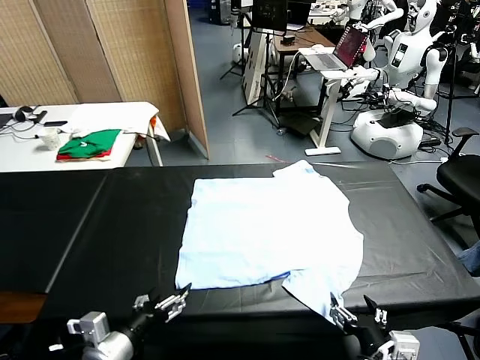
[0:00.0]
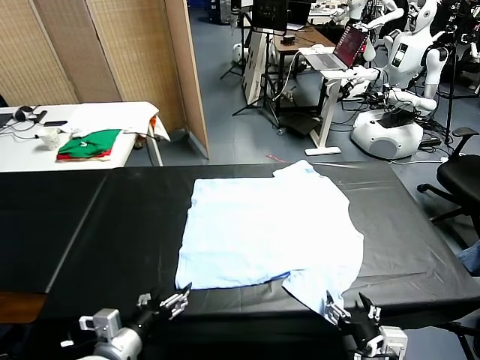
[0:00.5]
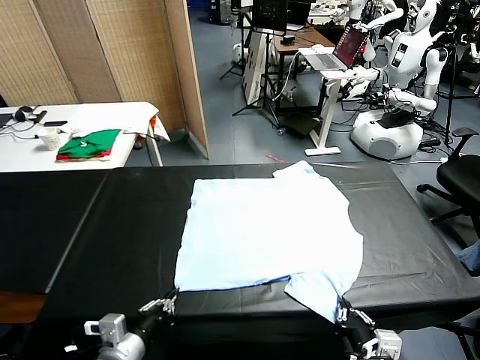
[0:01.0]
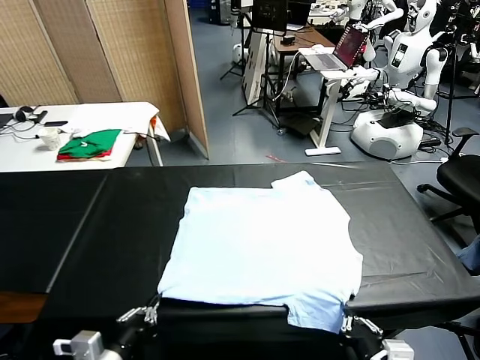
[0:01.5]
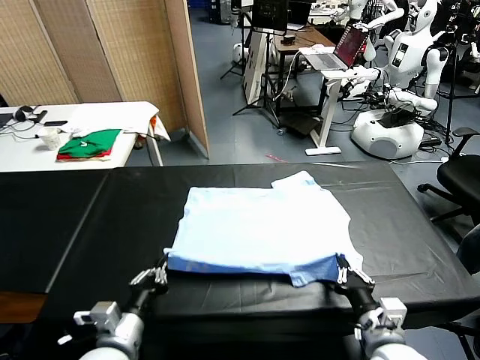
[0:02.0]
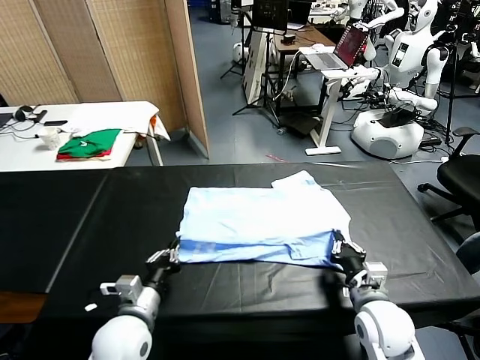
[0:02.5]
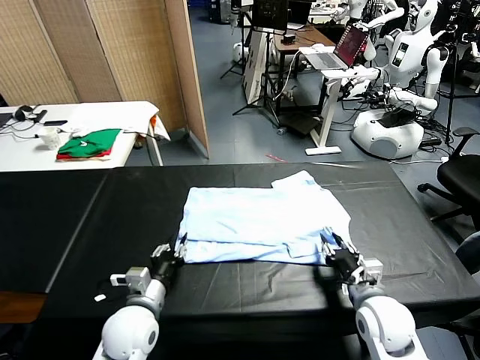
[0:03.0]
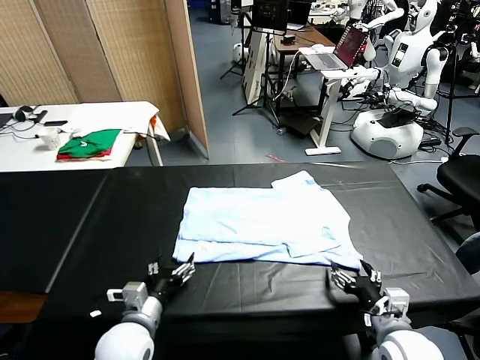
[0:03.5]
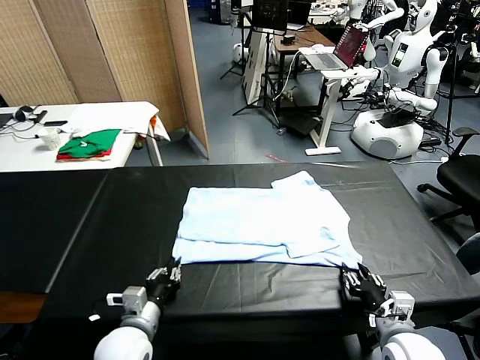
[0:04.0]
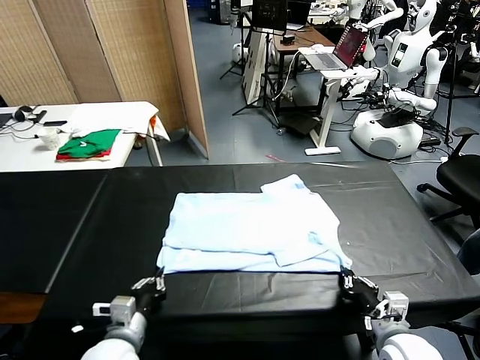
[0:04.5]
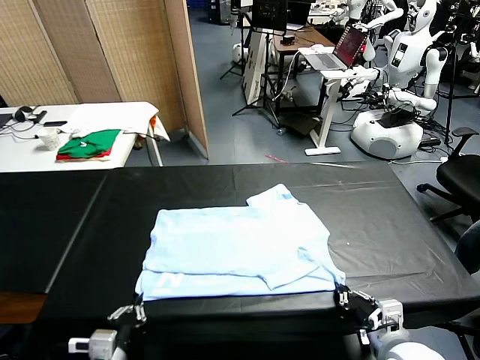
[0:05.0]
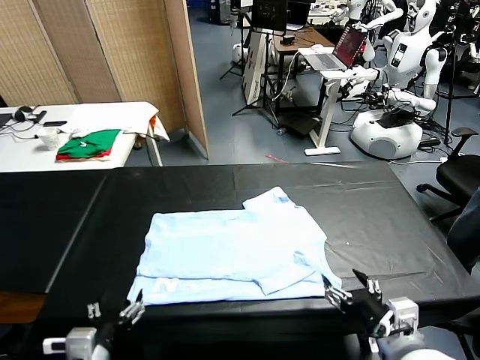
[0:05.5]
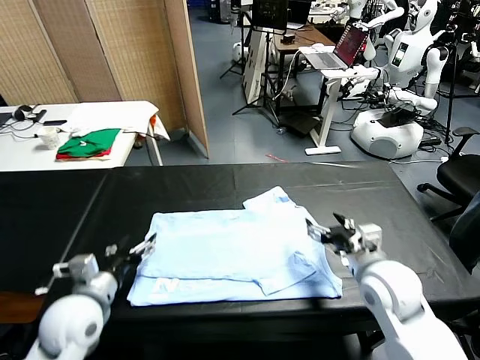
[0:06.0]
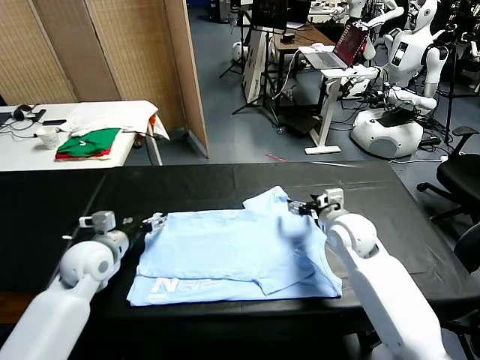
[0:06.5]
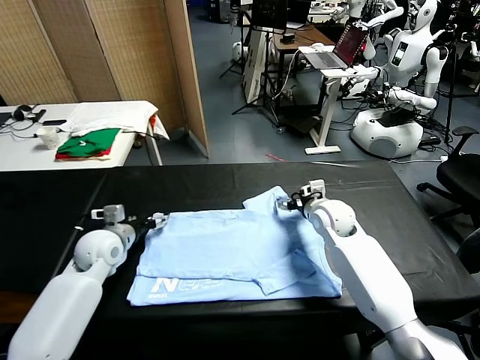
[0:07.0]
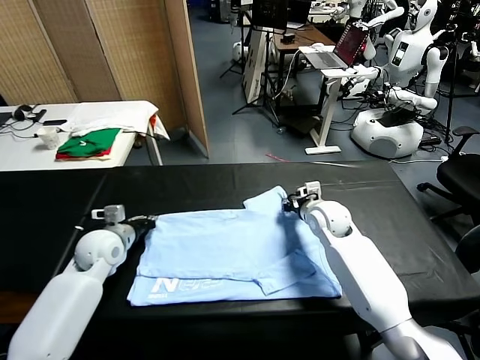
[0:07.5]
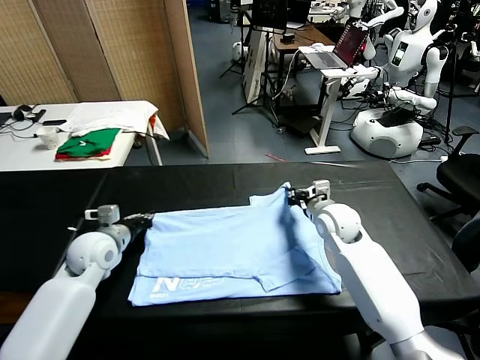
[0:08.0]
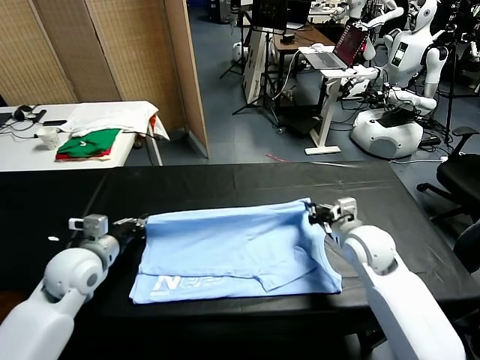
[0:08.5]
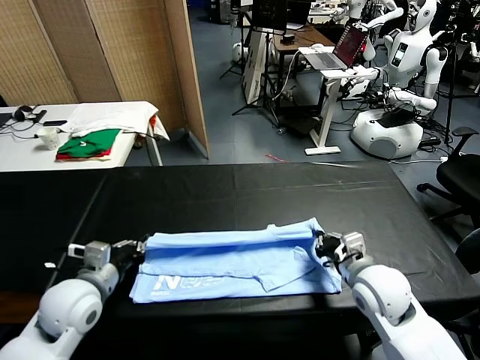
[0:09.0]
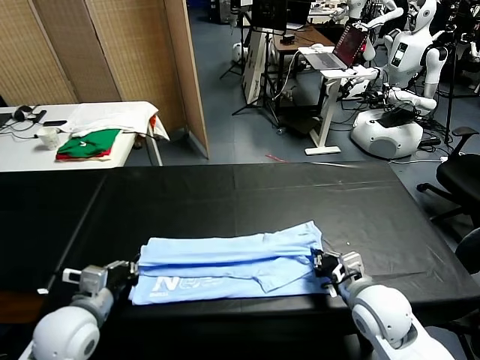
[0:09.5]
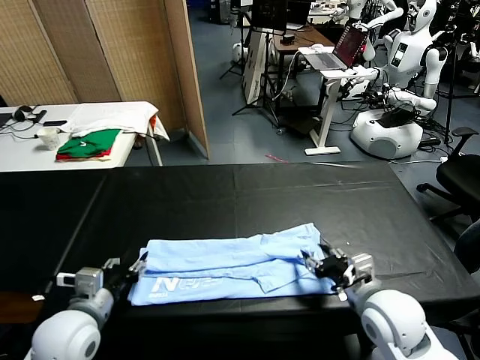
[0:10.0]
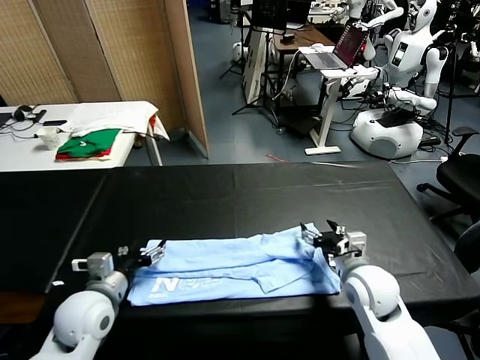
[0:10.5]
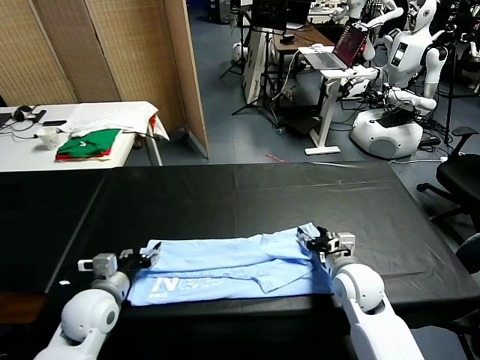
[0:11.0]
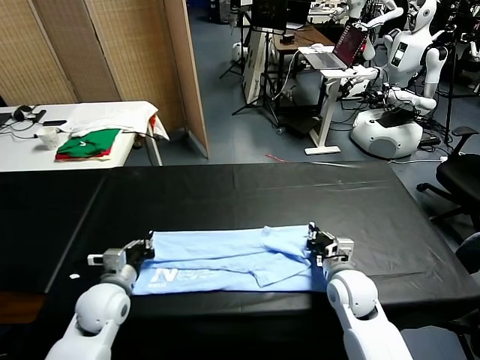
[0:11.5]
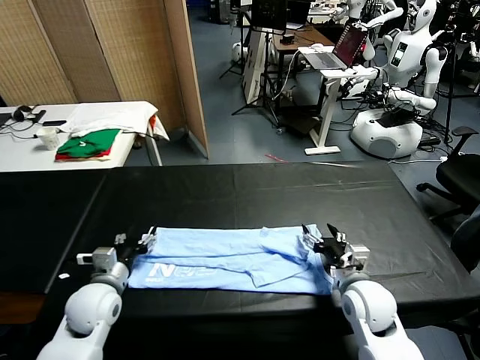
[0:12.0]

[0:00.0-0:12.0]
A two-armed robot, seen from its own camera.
Task of the whole recording: fold and organize the clothes.
Step, 0.0 to 1.0 s: use both grippers simultaneously to clamp the lower edge of the clothing fabric.
Step, 1.5 to 3.0 s: use both grippers to drag the lower edge of the fabric forward and fold it over the upper edge.
Step, 3.5 to 5.5 s: Drag the clothes downward with both gripper.
Step, 6.0 to 8.0 s: use both grippers simultaneously to clamp the upper edge of the clothing fabric.
Step, 8.5 to 10.0 s: use both grippers to drag the upper edge of the fabric backward and fold it over the lower edge.
2.0 to 4.0 s: The left gripper opens and closes again, while the right gripper changes place by about 5 cm, and opens, then closes again.
4.0 to 6.0 s: The left gripper heads forward, to the left and upward, covering about 15 cm, and opens up, while the right gripper goes some 20 cm forward and upward, and opens up.
6.0 to 8.0 s: The right gripper moves forward, about 5 cm, and closes. The left gripper closes its fingers.
8.0 to 10.0 s: The two grippers go approximately 15 cm backward. The right gripper opens up. The left gripper opens up.
10.0 to 12.0 s: The right gripper closes, then reopens. The left gripper heads downward, covering roughly 5 cm, and closes, then reopens.

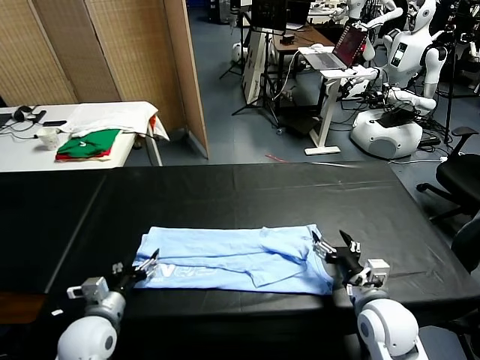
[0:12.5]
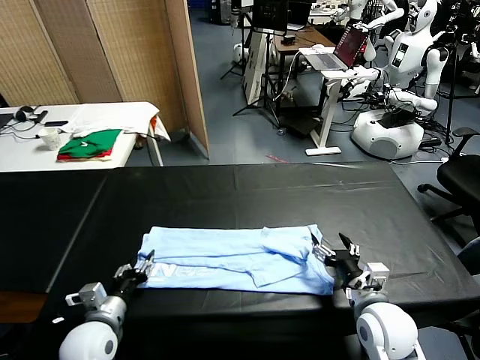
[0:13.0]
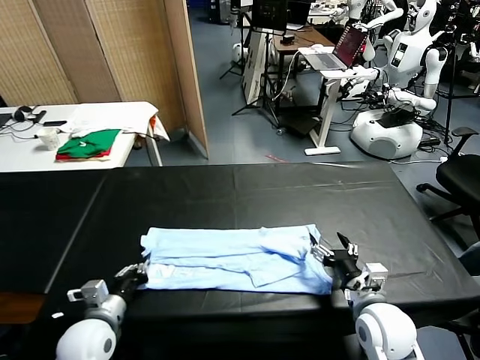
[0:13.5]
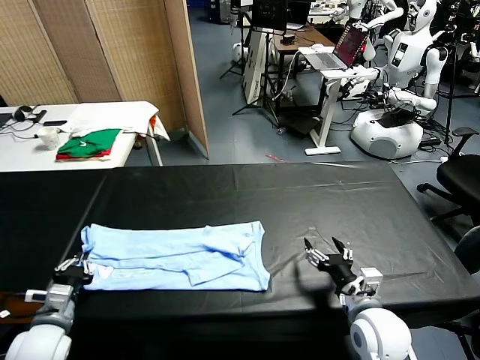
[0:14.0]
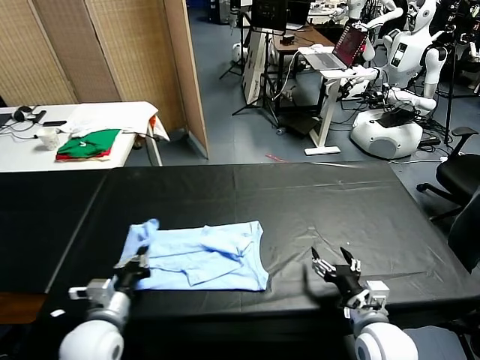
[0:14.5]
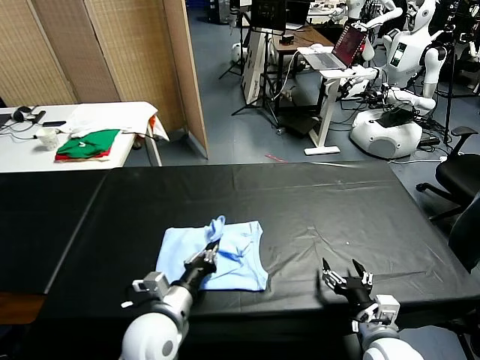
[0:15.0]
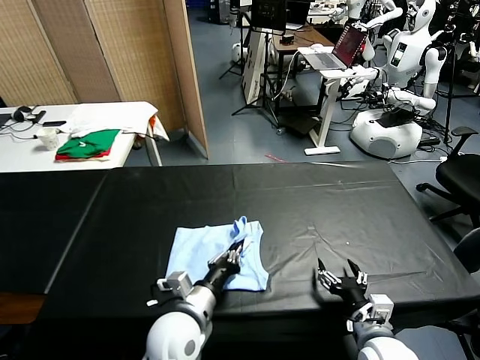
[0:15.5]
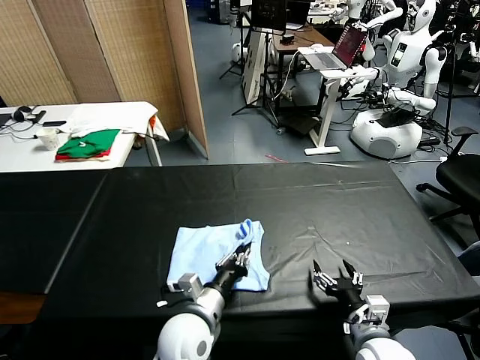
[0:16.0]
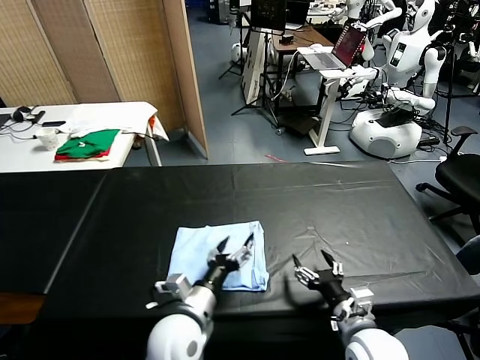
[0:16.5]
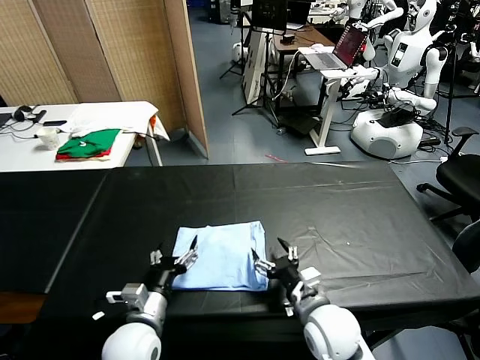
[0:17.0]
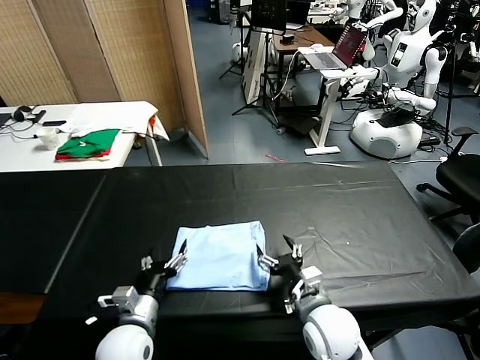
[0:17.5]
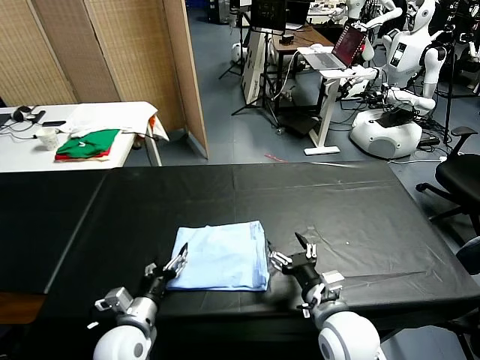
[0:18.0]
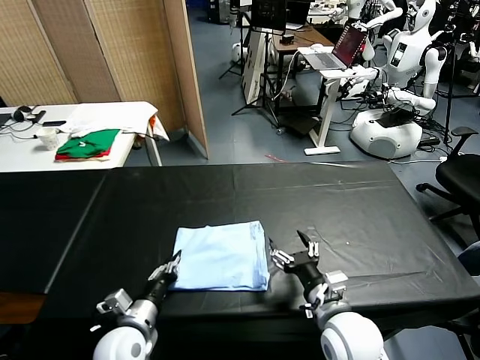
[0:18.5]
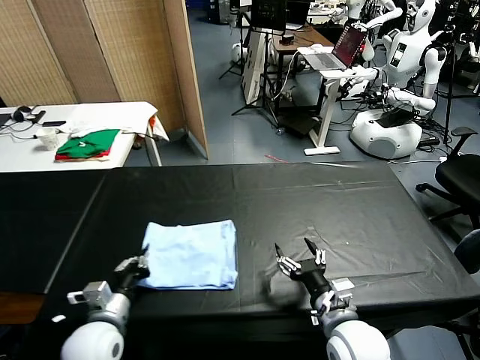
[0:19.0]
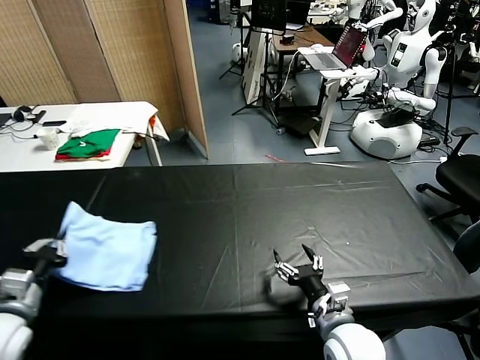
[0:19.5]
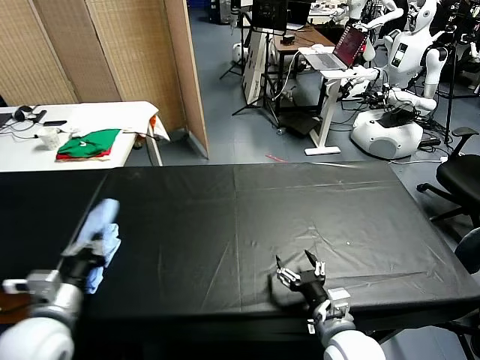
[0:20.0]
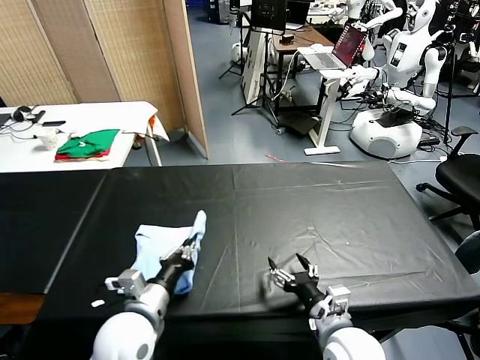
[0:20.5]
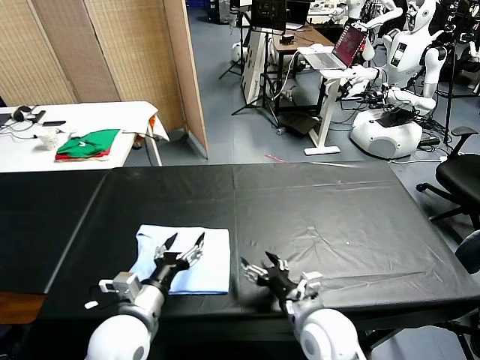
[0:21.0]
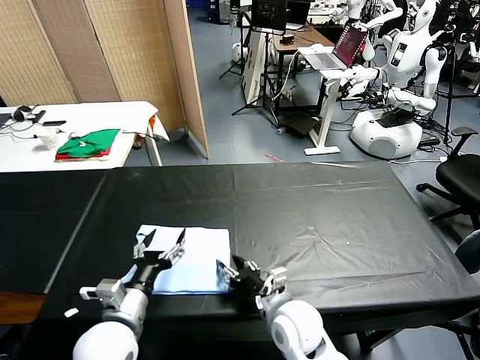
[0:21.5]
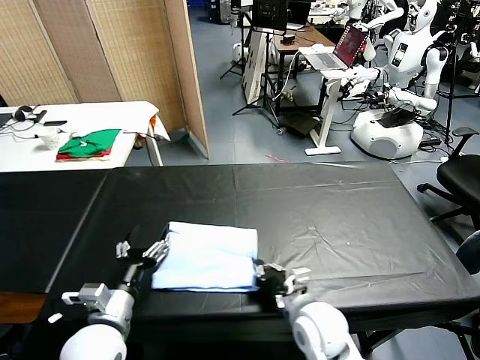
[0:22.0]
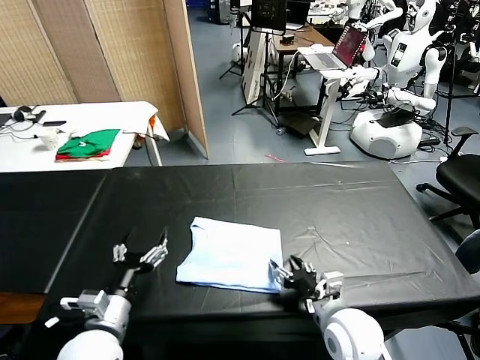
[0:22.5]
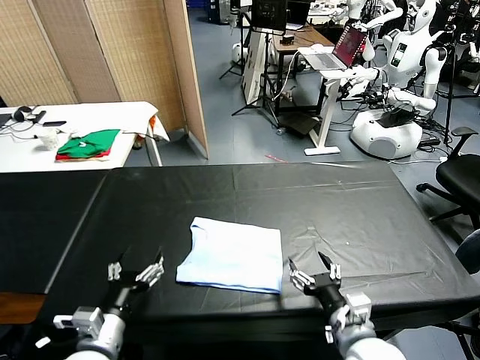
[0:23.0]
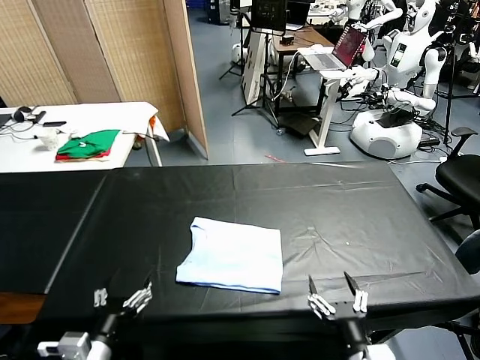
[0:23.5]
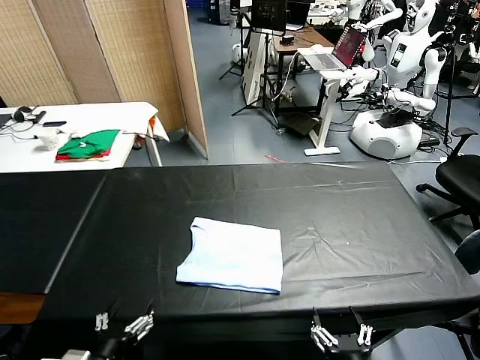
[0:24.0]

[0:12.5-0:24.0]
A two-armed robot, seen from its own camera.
Task of the whole recording: fold and organize the clothes.
Step, 14.0 to 16.0 s: use the left gripper to drag the left edge of the fabric to the left and folds it over the right edge.
Step, 16.5 to 20.5 s: Flip the folded clothes over with left gripper.
Step, 21.0 to 22.5 s: Drag the clothes to the center of the table.
12.5 to 14.5 s: The left gripper moves to the right, approximately 5 cm, and closes up.
14.5 to 16.5 s: The left gripper is displaced to the right by about 10 cm, and opens.
16.5 to 18.5 s: The left gripper travels to the left and downward by roughly 10 cm, and closes its fingers.
18.5 to 20.0 s: The left gripper goes some 15 cm upward and to the left.
20.0 to 22.0 s: The left gripper moves to the right and downward, roughly 10 cm, and opens its fingers. The right gripper shifts approximately 10 cm forward and to the left, and closes.
22.0 to 24.0 s: The left gripper travels backward by approximately 10 cm. The right gripper travels backward by roughly 20 cm, and opens.

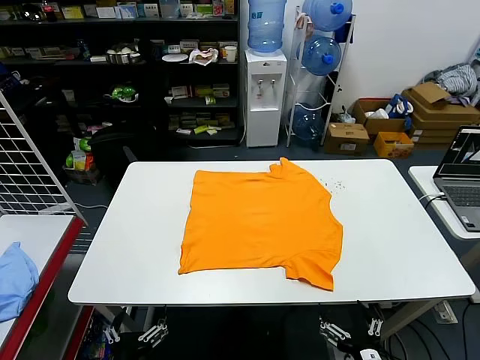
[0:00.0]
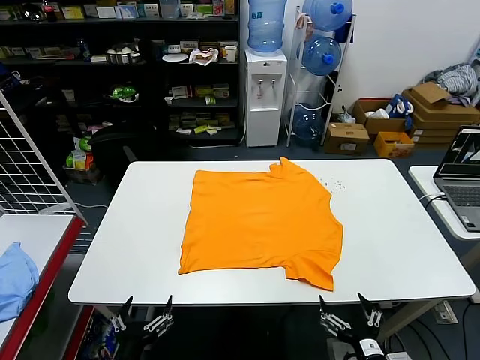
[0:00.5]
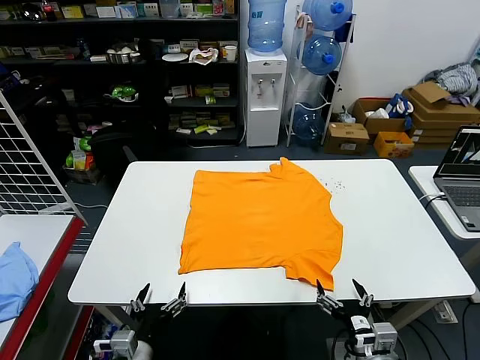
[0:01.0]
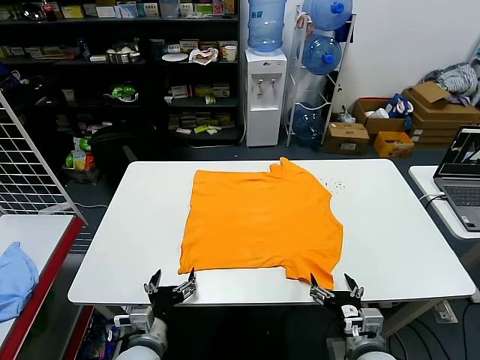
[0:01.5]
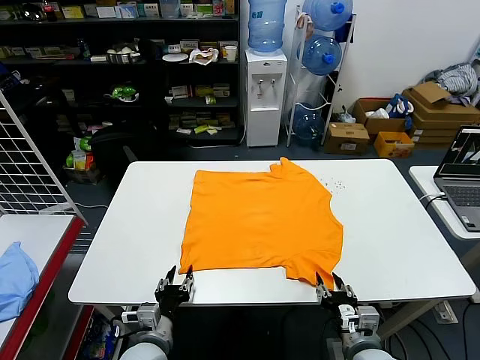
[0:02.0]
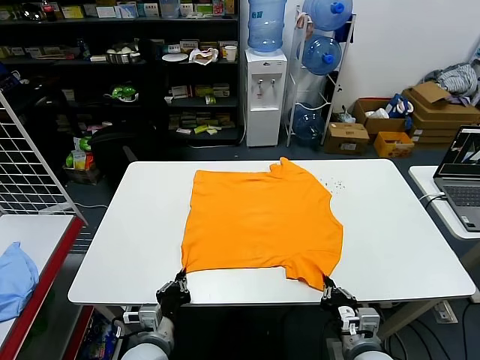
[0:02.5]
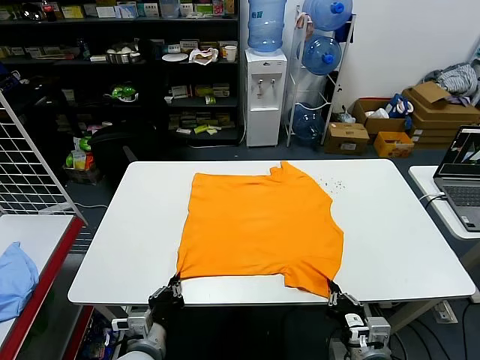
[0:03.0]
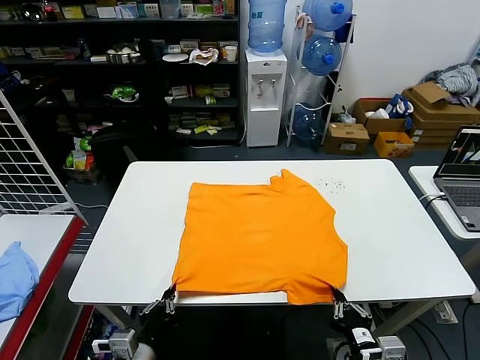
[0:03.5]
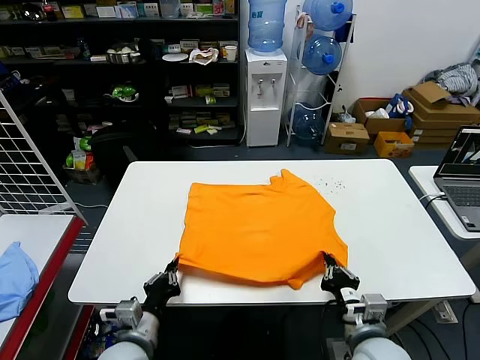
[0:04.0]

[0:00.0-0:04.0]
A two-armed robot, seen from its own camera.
Task of the whole recording: fold and organize the clothes.
Step, 0.0 to 2.0 s: use both grippers simultaneously to clamp the lower edge of the clothing fabric.
2.0 to 4.0 s: The two grippers go some 5 cm upward. The left gripper closes up; the right gripper goes backward and returns, some 5 cm each way, and closes up.
